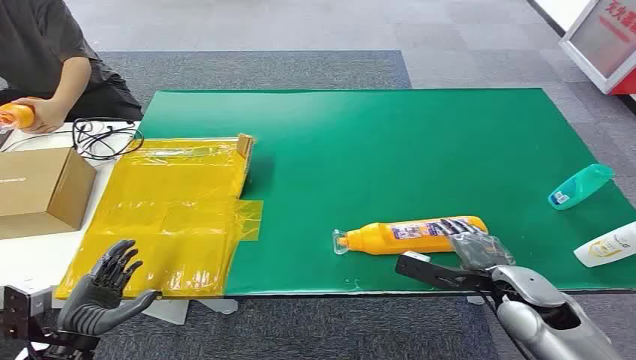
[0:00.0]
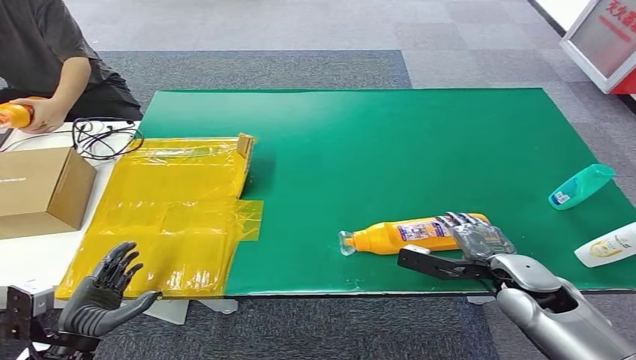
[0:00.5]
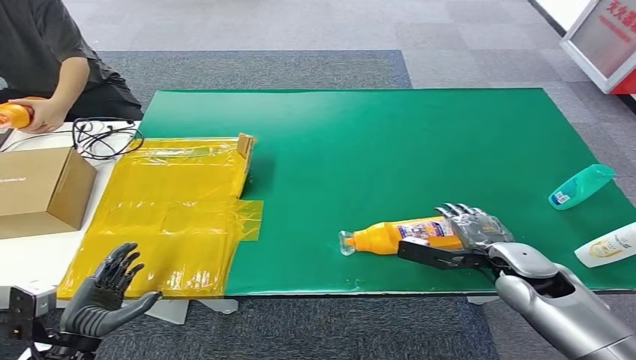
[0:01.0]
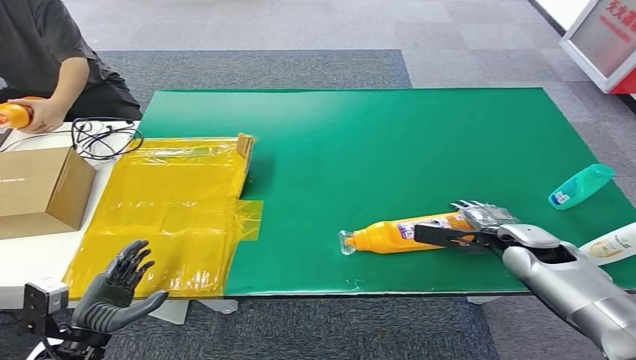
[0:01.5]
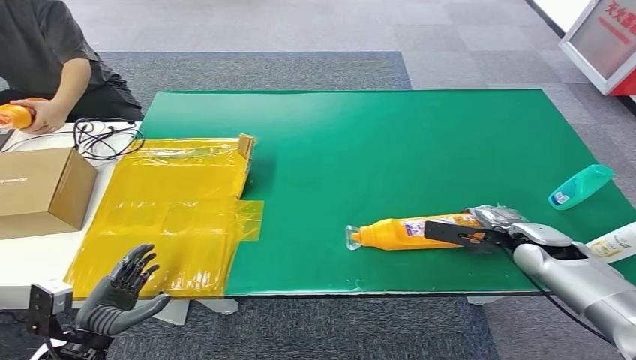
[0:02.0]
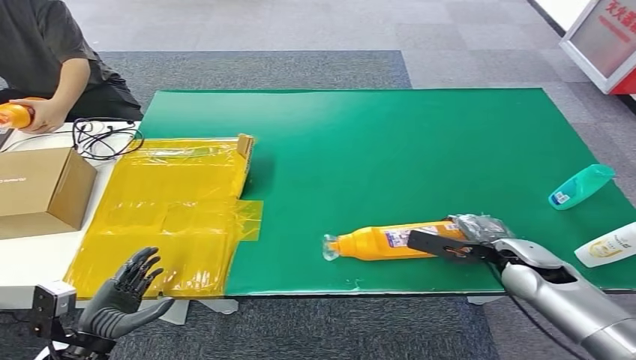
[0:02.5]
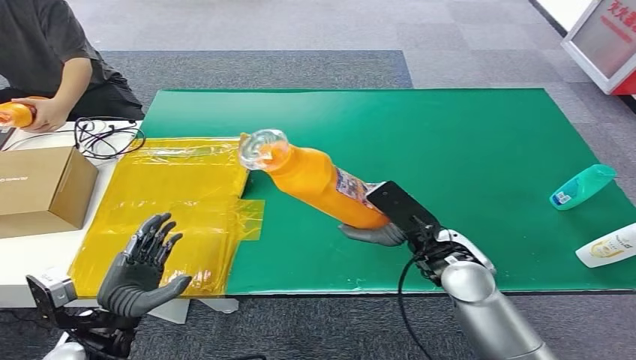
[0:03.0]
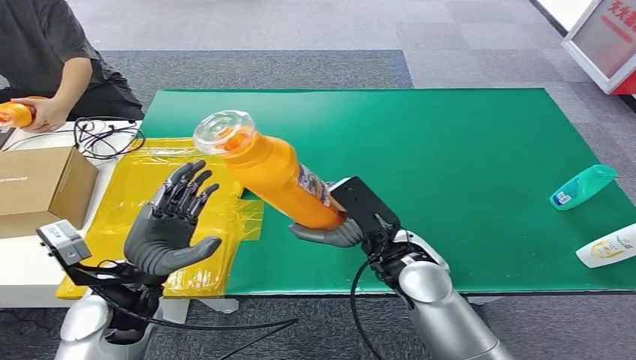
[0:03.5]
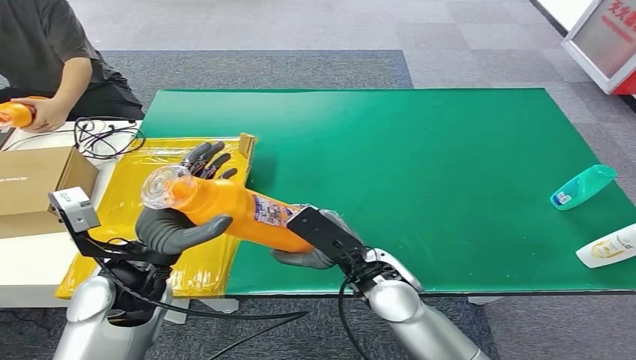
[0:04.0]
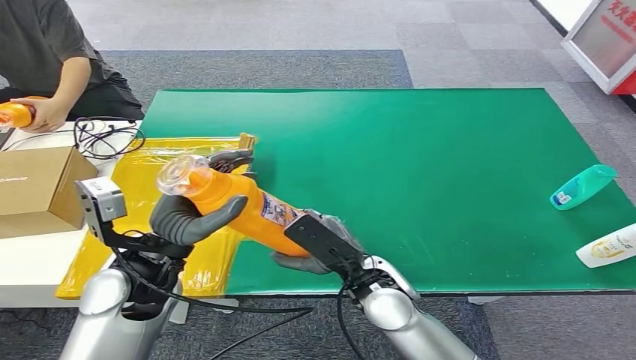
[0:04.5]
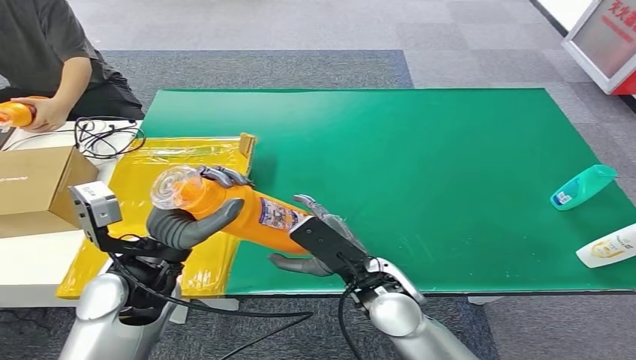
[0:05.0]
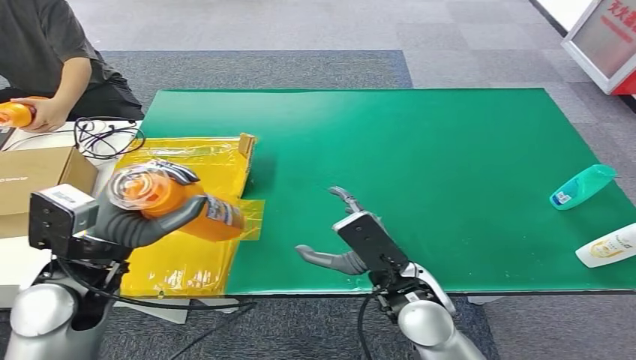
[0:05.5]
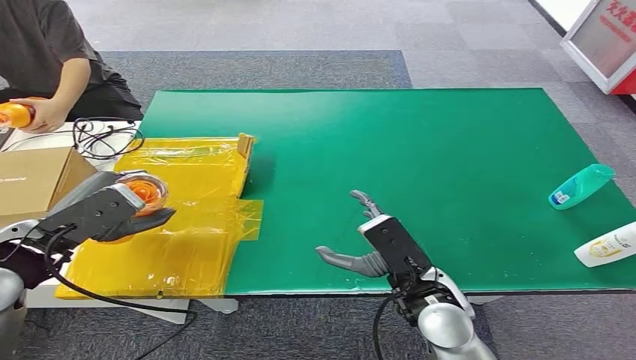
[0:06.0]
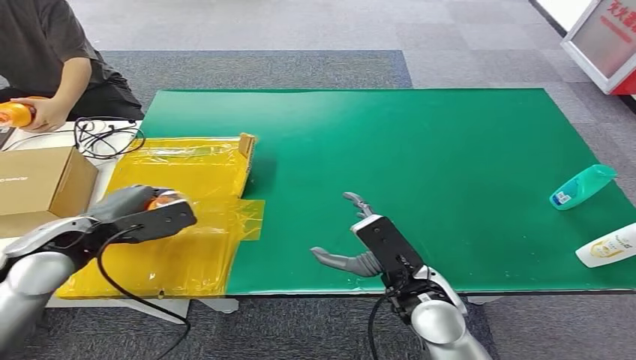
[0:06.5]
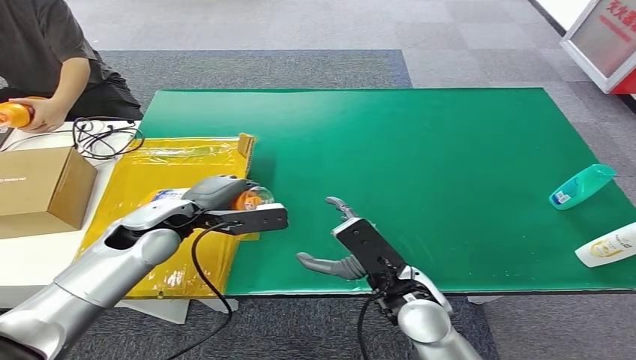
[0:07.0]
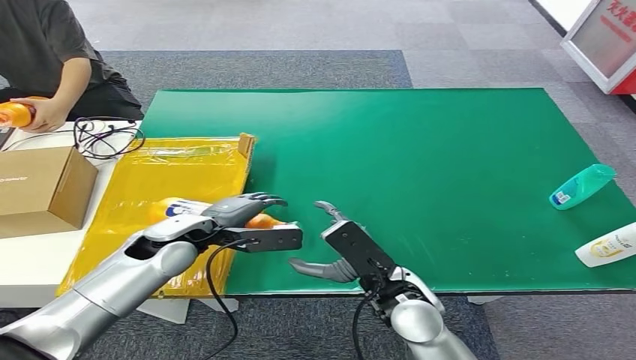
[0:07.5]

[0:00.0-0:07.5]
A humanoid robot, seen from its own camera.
Step, 0:00.0 to 0:03.0: Pick up the bottle from the table.
Step, 0:04.0 to 0:07.5: Turn the bottle to the front side.
0:04.0 to 0:05.5: The right hand shifts by some 5 cm; the left hand moves approximately 5 cm.
0:05.5 to 0:07.5: The left hand heads forward and downward, covering approximately 10 cm, and reaches approximately 10 cm to the left, then returns.

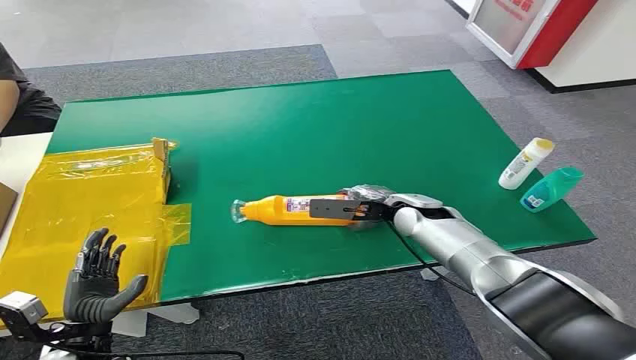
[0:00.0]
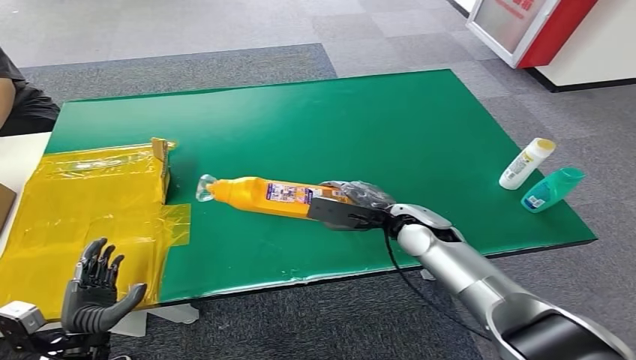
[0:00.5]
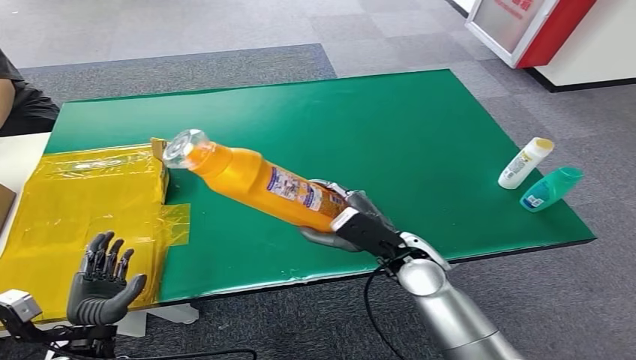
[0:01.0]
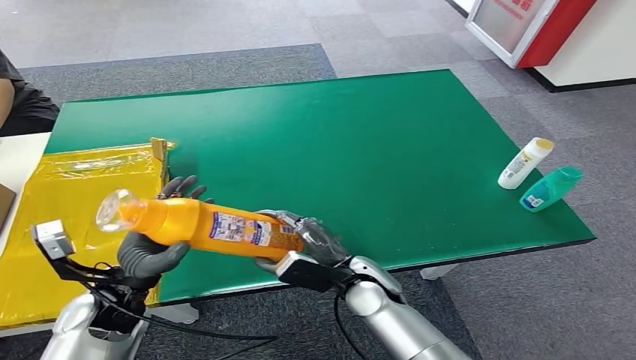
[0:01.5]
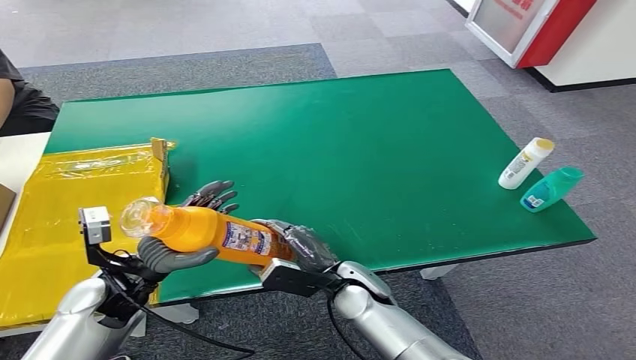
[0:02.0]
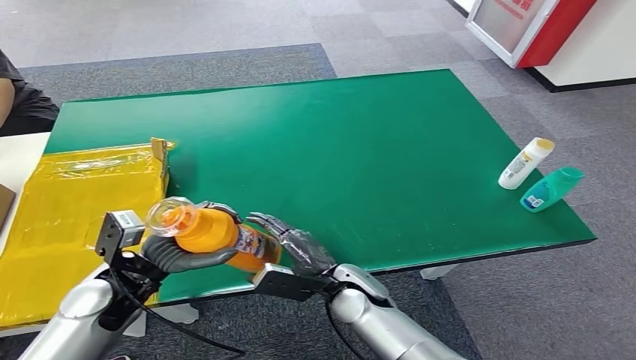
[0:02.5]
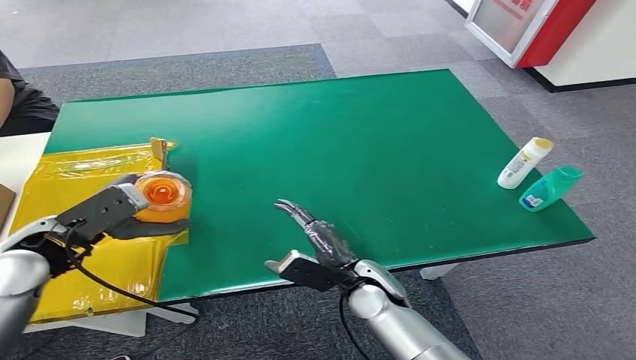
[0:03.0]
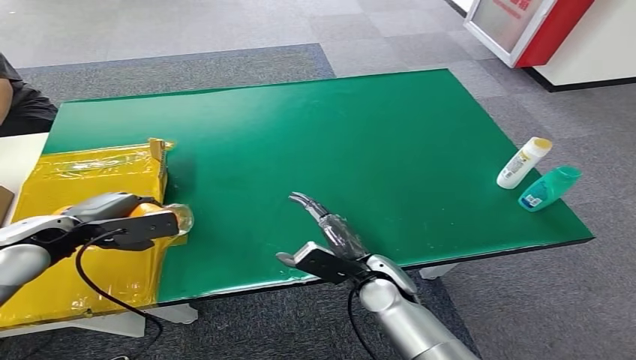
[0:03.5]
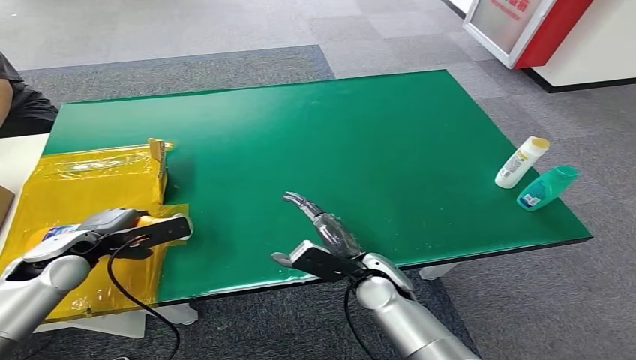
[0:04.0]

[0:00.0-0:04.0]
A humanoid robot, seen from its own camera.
Step, 0:00.0 to 0:01.0: Pick up the bottle from the table.
Step, 0:01.5 to 0:04.0: Turn the bottle to the front side.
0:02.0 to 0:04.0: The left hand goes some 10 cm to the left and forward.
